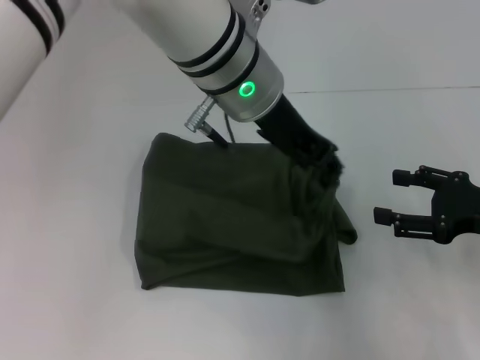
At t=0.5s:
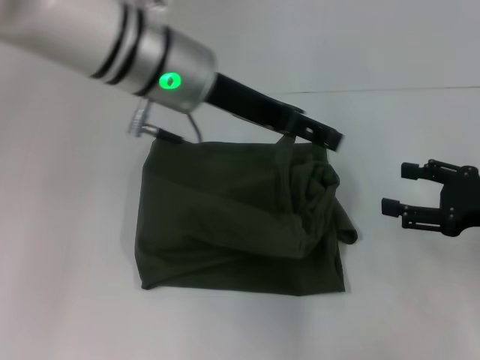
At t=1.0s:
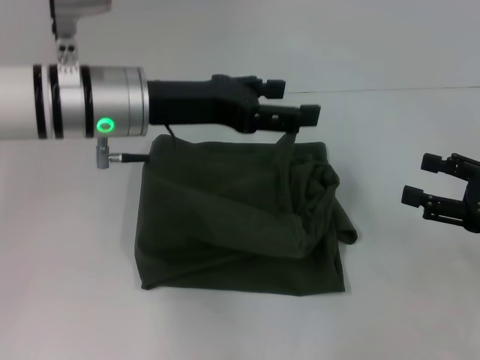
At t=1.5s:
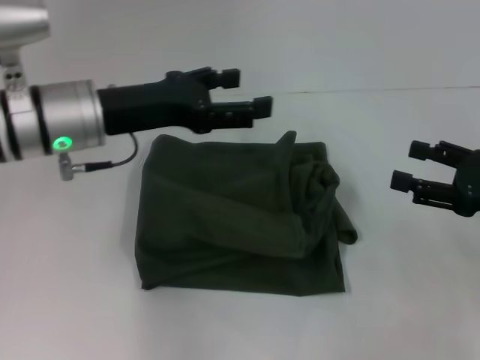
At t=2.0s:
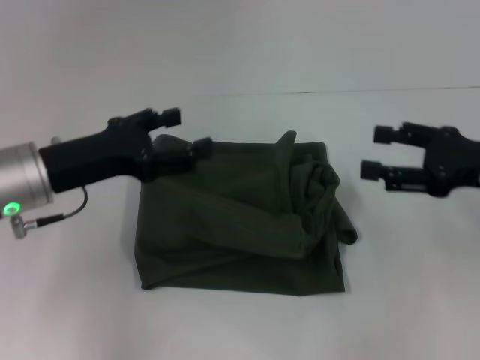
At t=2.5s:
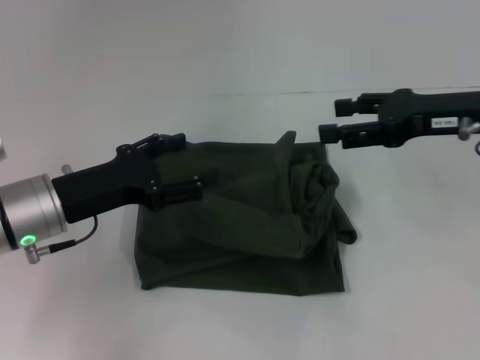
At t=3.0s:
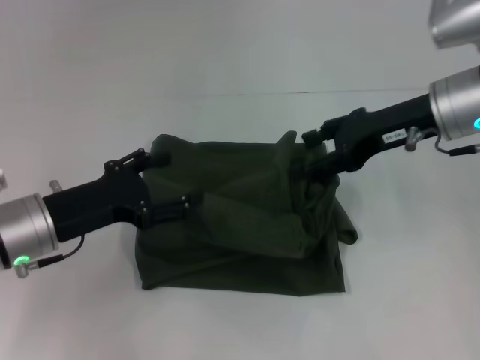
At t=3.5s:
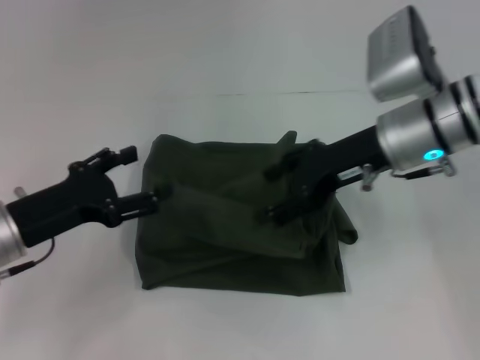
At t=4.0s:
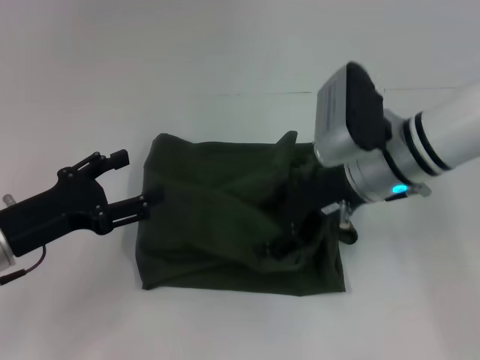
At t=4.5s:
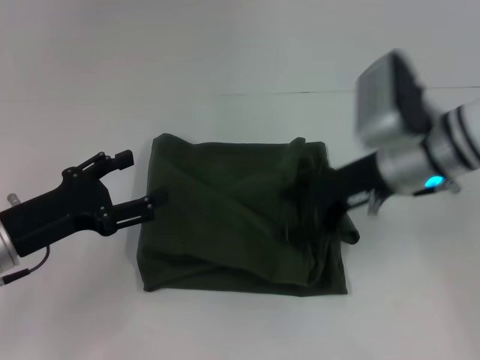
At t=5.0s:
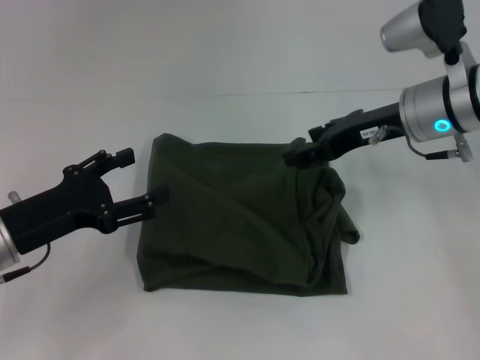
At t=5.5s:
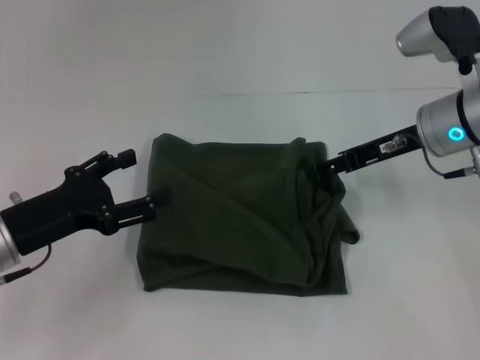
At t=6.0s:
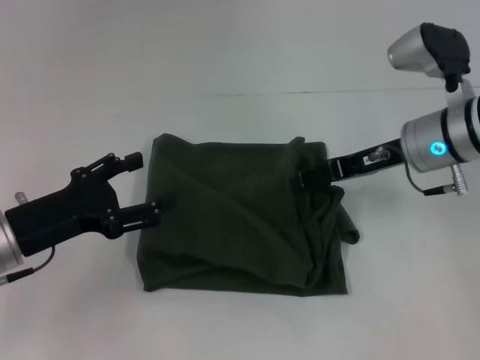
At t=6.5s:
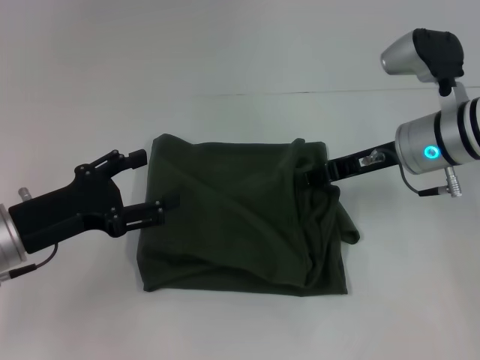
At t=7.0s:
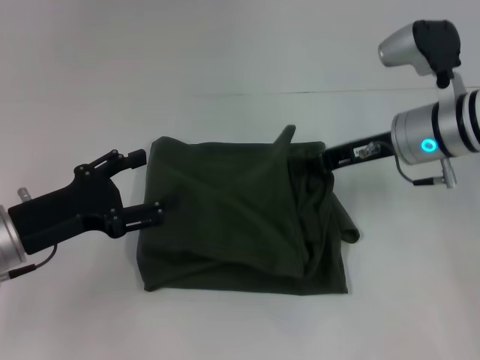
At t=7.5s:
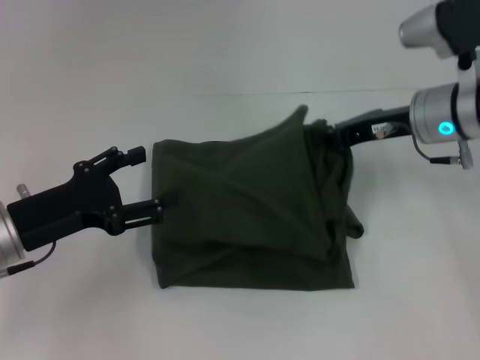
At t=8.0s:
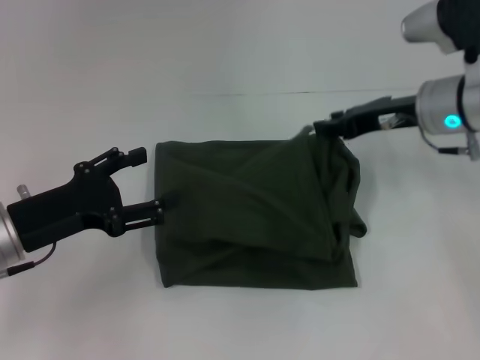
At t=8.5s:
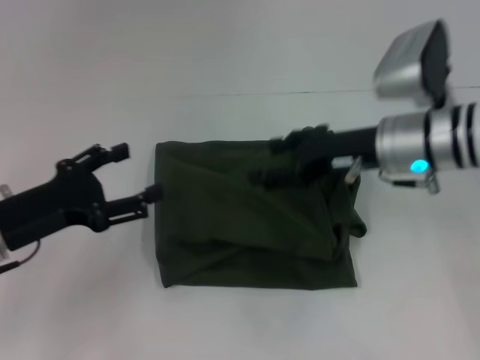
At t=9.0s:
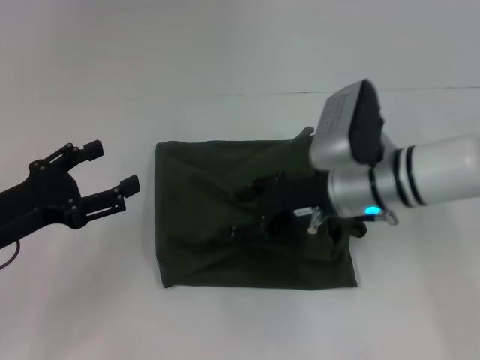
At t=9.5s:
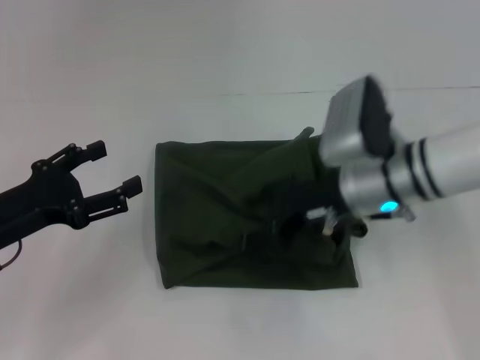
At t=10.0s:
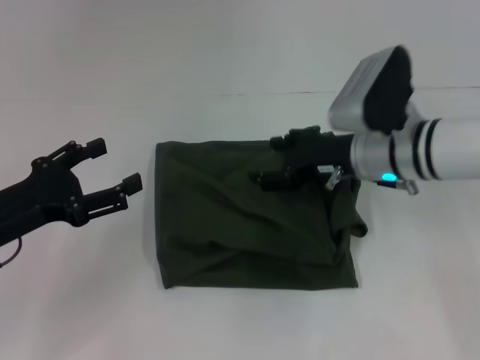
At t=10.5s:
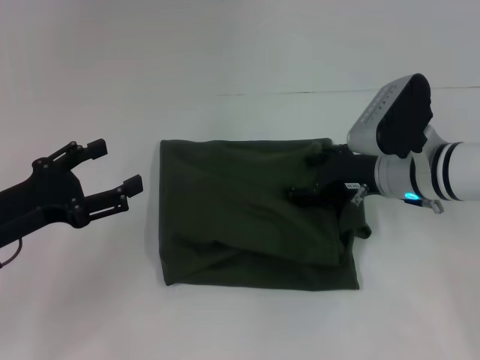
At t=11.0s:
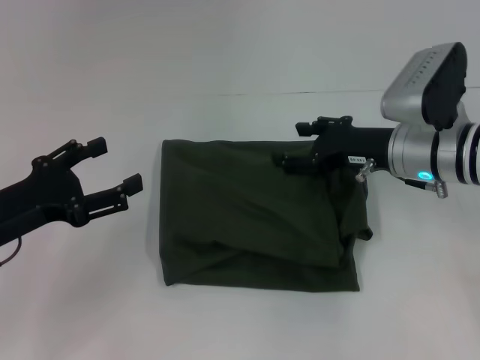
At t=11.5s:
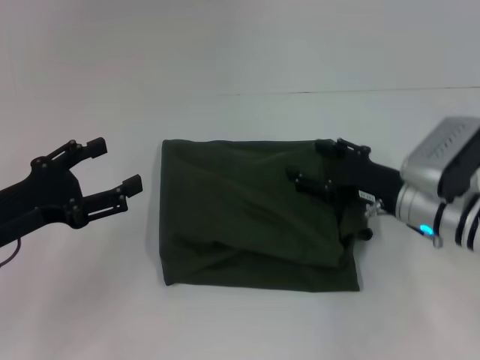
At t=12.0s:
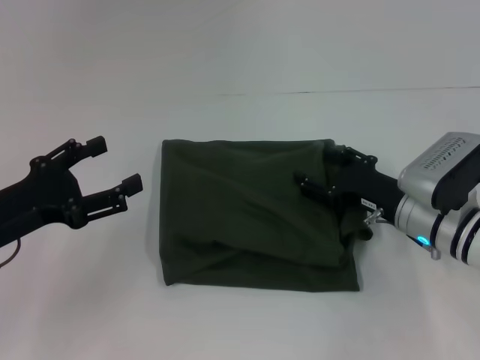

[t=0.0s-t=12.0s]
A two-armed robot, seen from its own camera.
t=0.0s to t=2.0s: The left gripper goes approximately 25 cm to the left and downward, and opens its fingers. The right gripper changes place by roughly 5 cm.
t=2.0s to t=4.0s: The left gripper ends up approximately 10 cm from where it was. The right gripper heads to the left, covering approximately 15 cm.
t=4.0s to t=6.0s: The right gripper moves to the right, about 5 cm.
t=6.0s to t=8.0s: The right gripper closes its fingers.
t=8.0s to t=10.0s: The right gripper heads to the left and downward, covering some 10 cm, and opens its fingers.
t=10.0s to t=12.0s: The right gripper moves downward, backward and to the right, some 10 cm.

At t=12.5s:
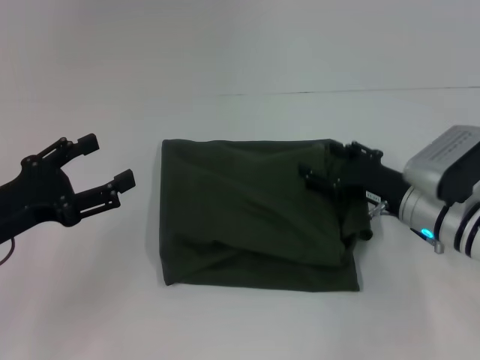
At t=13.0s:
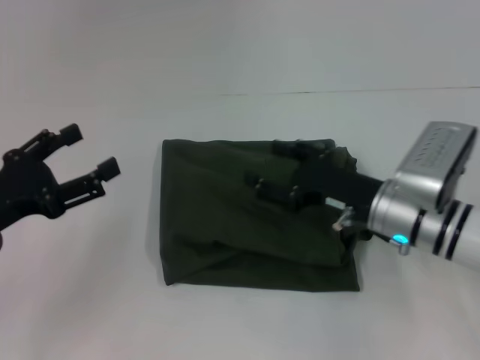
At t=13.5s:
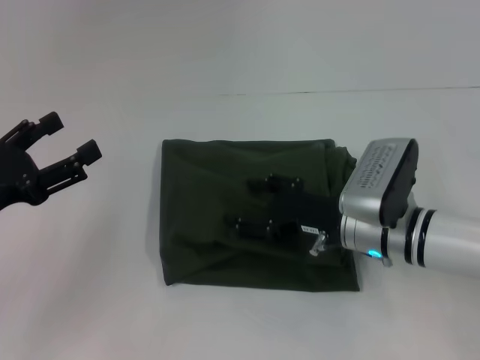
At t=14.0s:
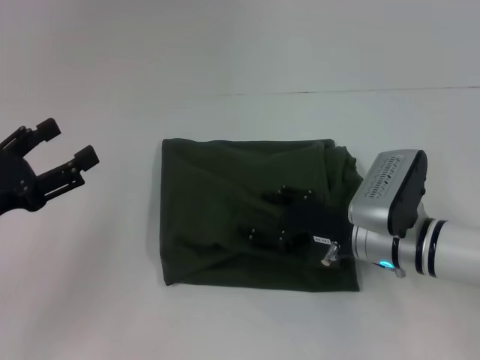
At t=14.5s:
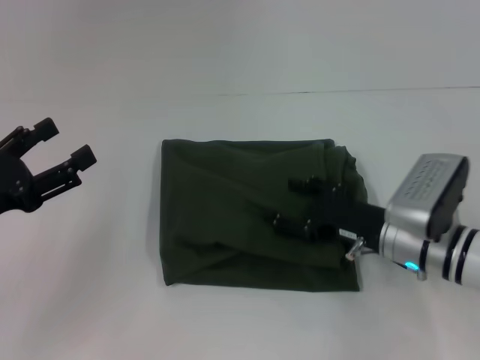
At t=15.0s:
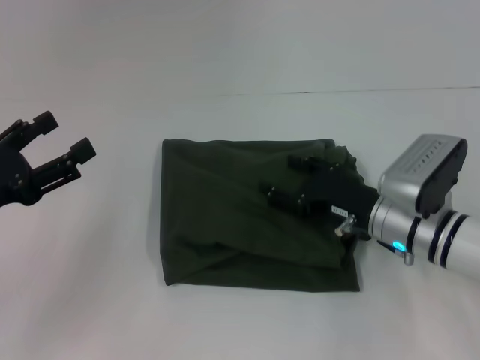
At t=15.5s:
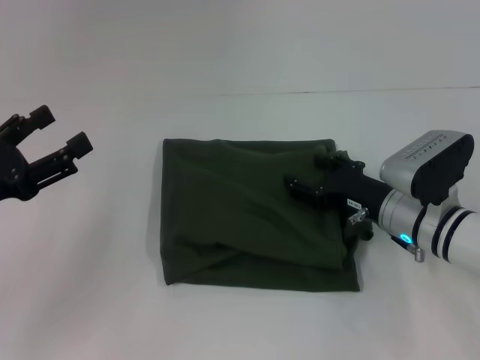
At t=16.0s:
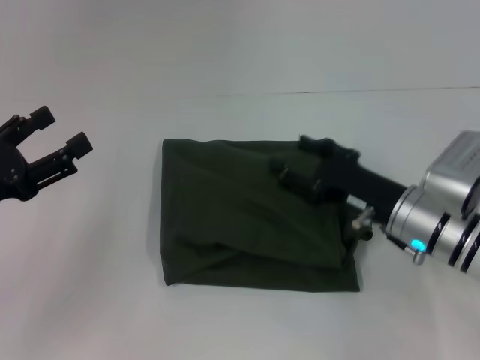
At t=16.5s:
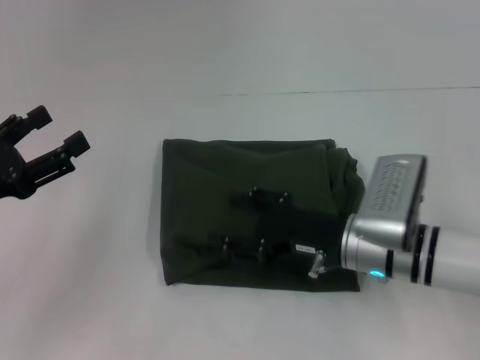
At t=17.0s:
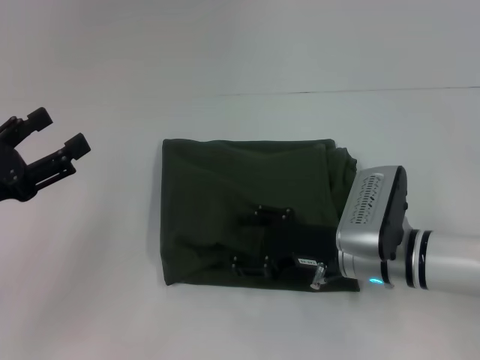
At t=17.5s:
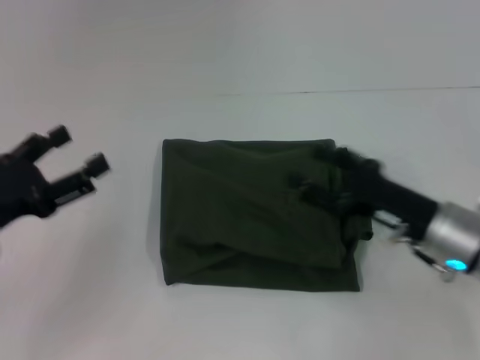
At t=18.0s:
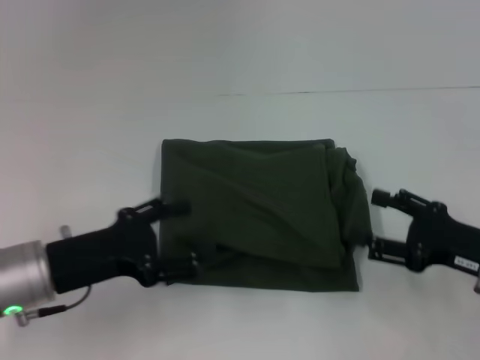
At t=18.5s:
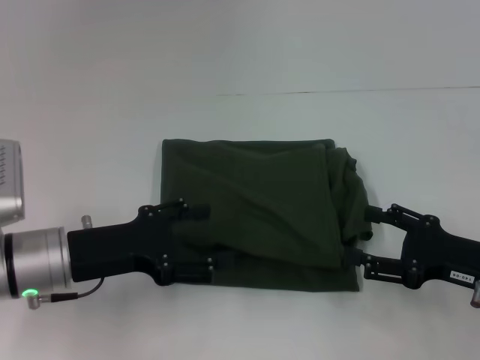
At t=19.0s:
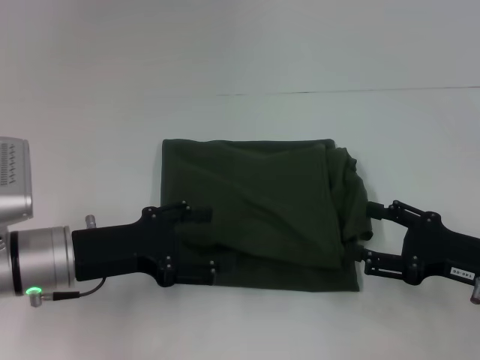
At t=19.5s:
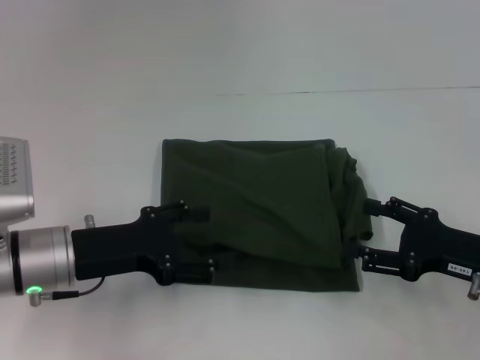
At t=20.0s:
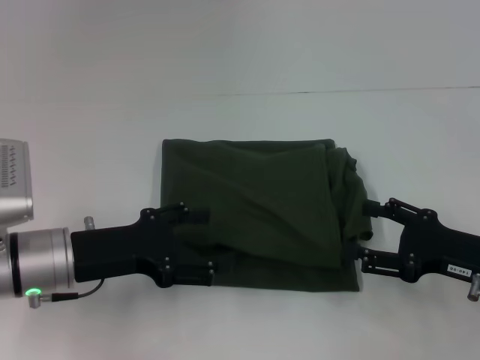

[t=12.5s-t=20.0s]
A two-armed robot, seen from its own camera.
t=14.5s to t=16.5s: The grippers make only small movements.
t=16.5s to t=18.0s: The left gripper shifts about 10 cm to the right, while the right gripper travels to the right by about 15 cm.
t=18.0s to t=20.0s: There are only small adjustments of the grippers.

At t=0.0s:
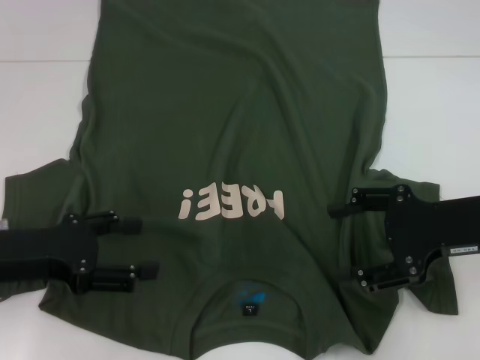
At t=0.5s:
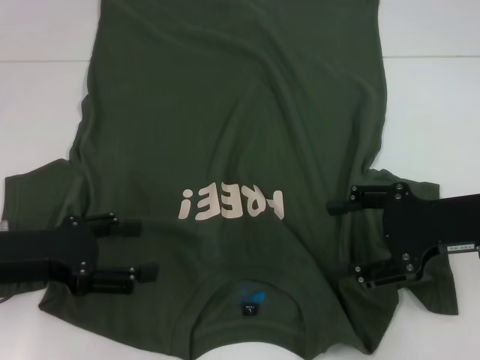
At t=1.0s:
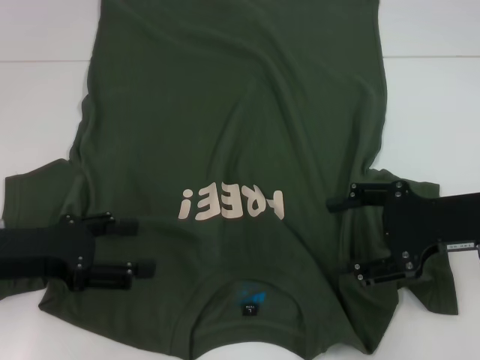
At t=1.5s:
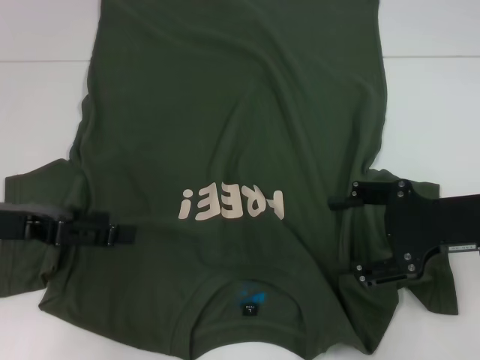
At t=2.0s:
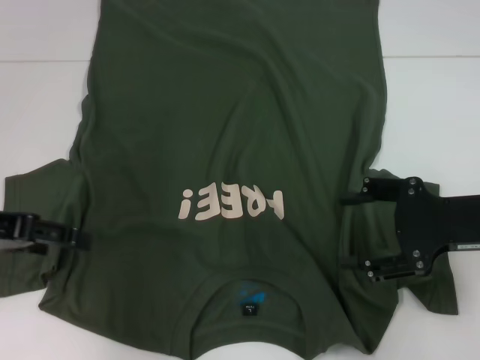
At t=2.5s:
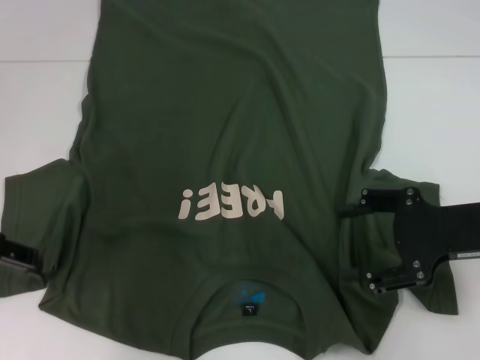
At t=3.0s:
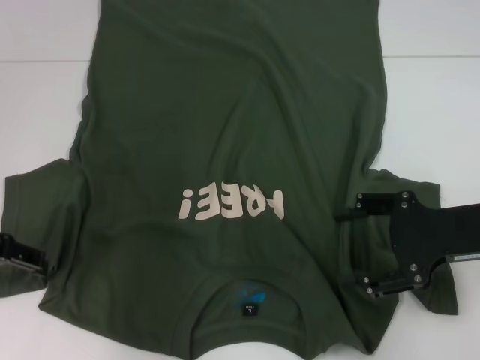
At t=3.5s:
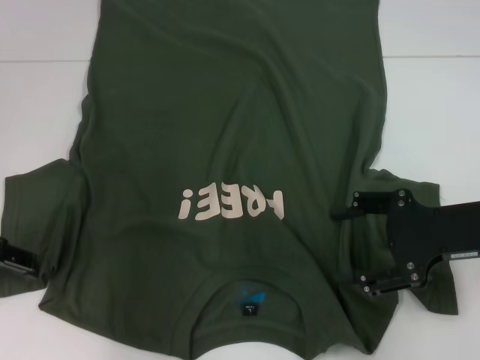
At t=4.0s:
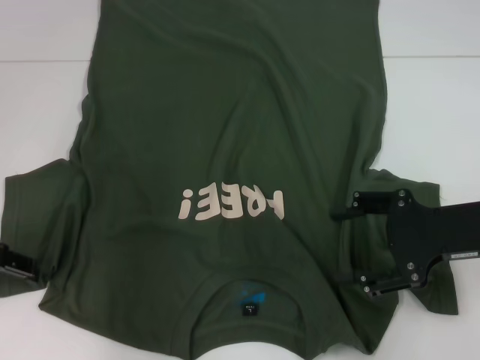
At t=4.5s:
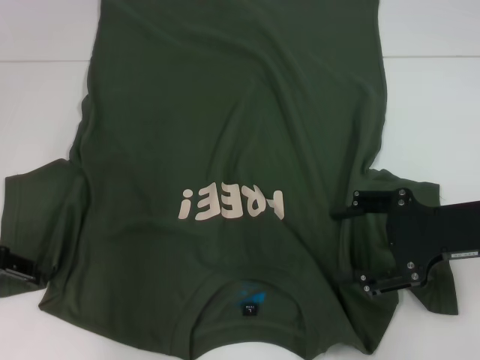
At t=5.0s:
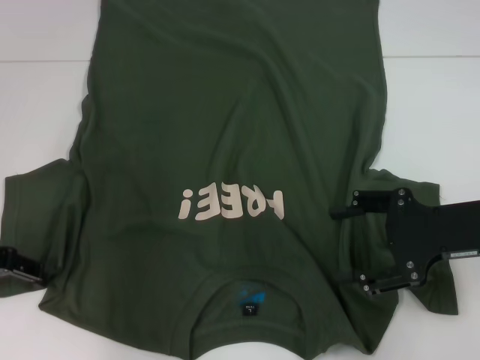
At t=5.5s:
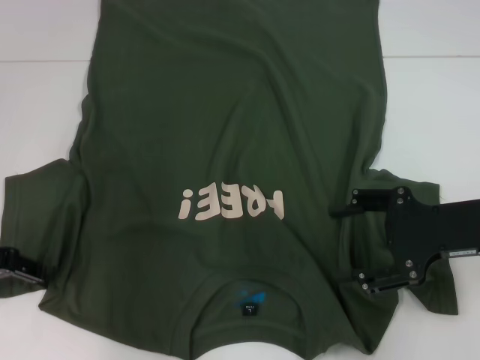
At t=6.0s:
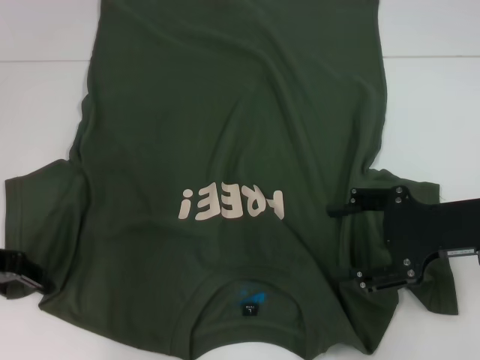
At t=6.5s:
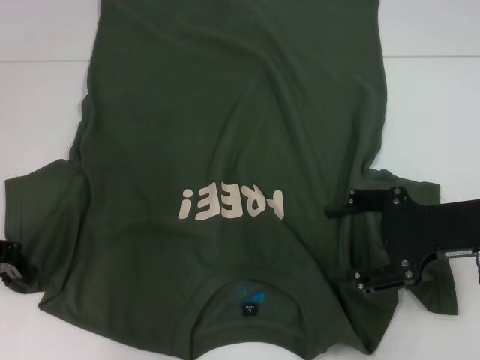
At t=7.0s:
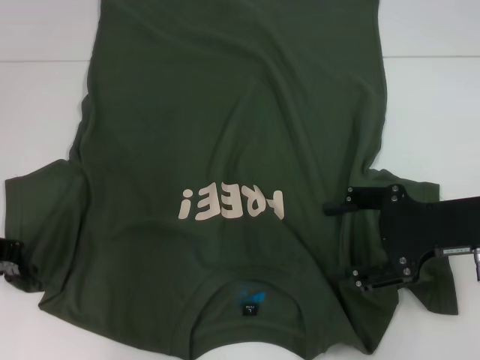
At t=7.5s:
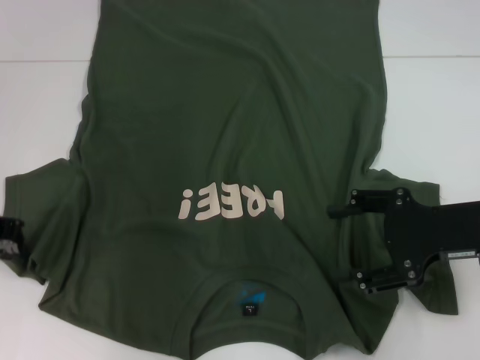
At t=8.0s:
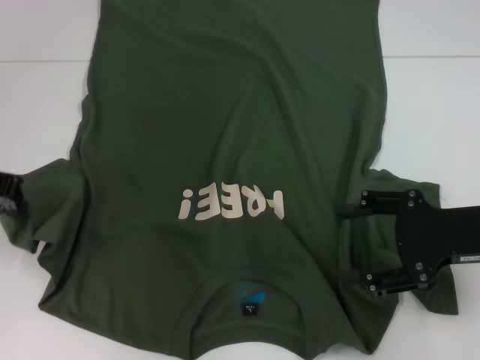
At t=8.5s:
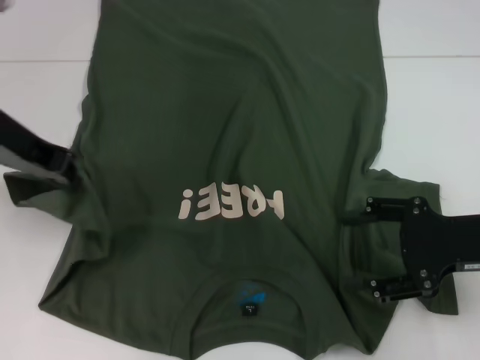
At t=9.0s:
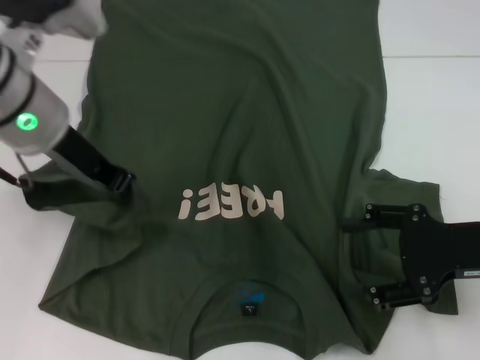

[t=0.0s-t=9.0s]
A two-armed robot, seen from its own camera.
t=0.0s to t=2.0s: The left gripper shifts approximately 10 cm upward.
t=2.0s to t=4.5s: The left gripper ends up some 5 cm from where it was.
t=4.5s to t=7.0s: The left gripper closes up.
t=7.0s to t=9.0s: The left gripper is displaced to the right and upward by approximately 15 cm.
